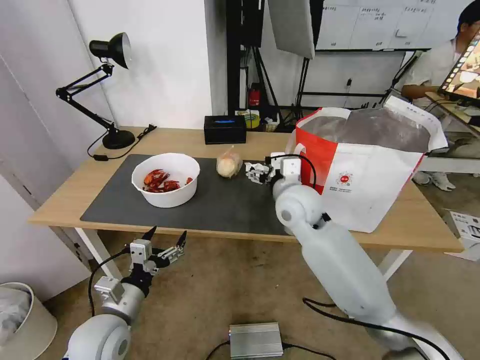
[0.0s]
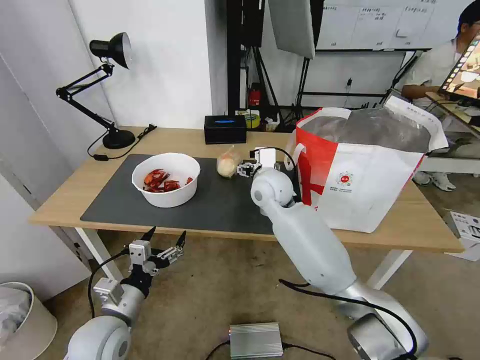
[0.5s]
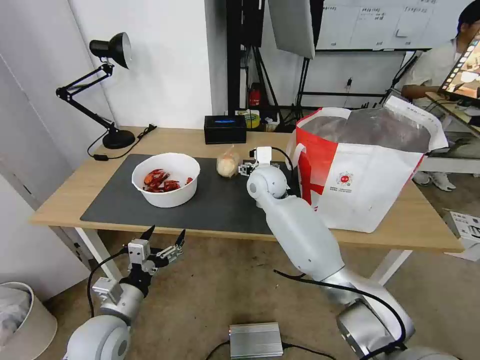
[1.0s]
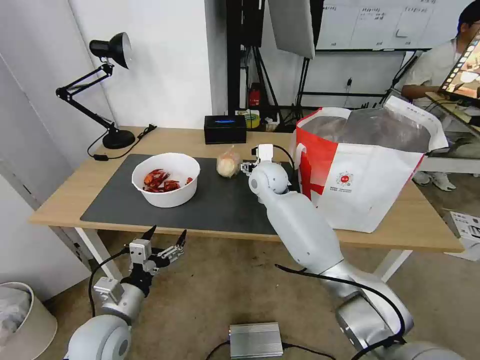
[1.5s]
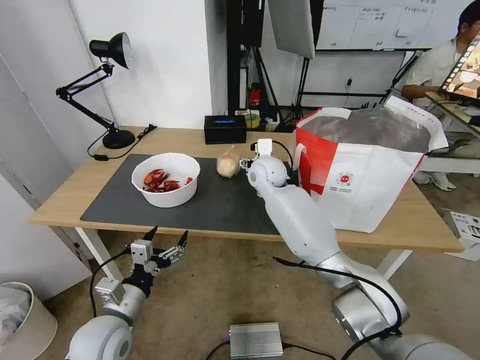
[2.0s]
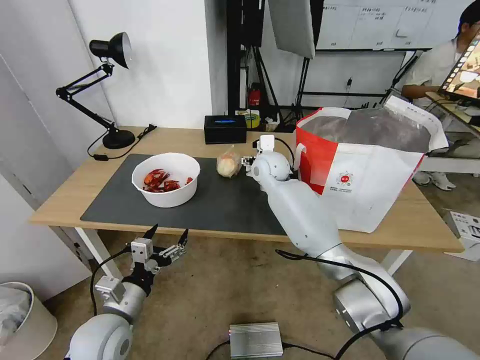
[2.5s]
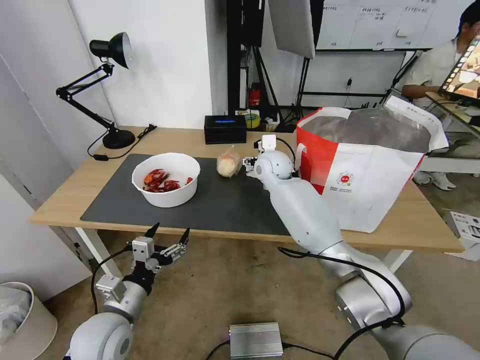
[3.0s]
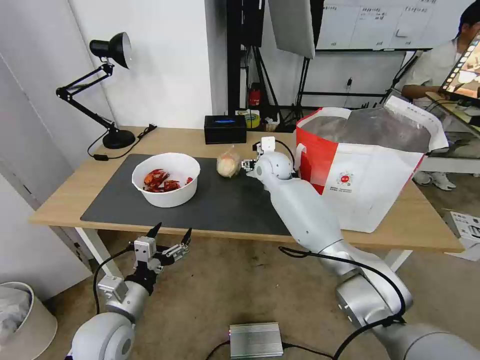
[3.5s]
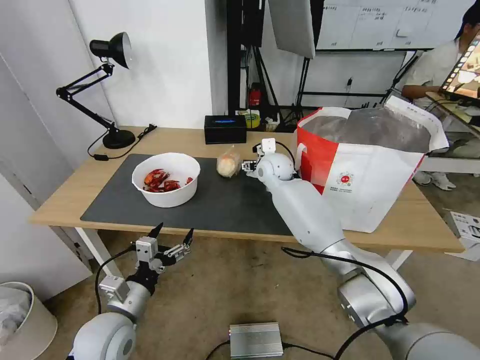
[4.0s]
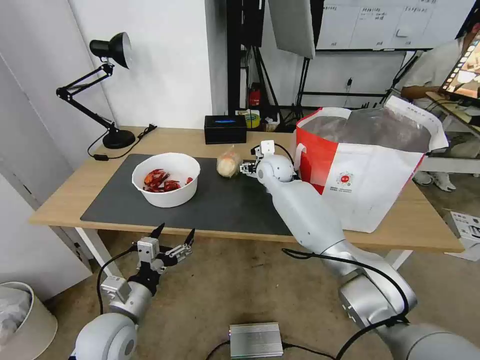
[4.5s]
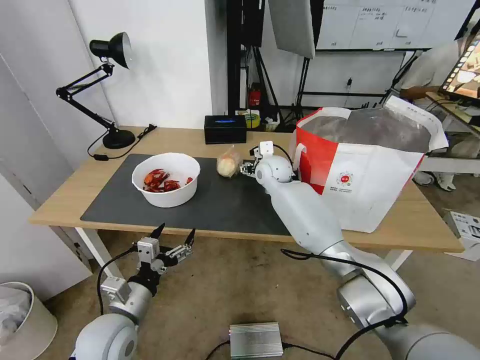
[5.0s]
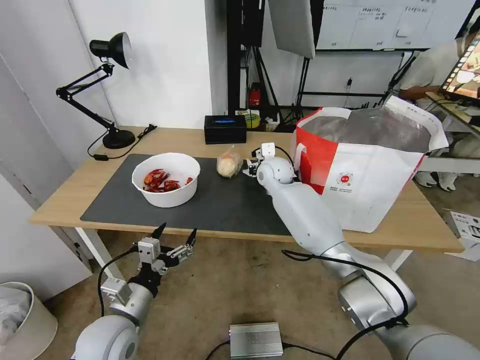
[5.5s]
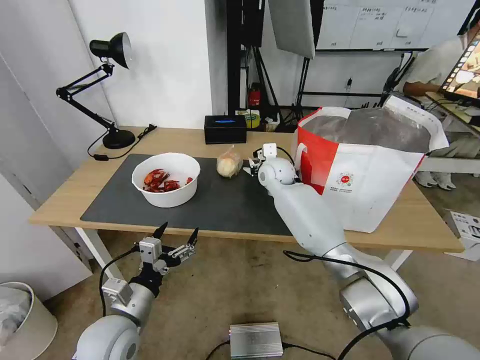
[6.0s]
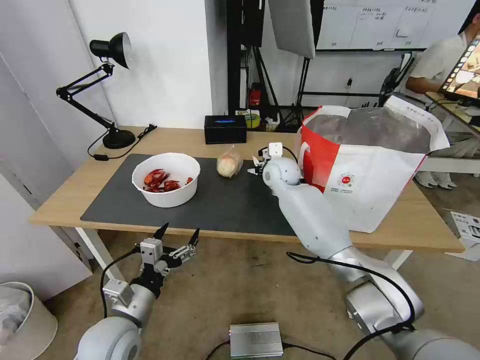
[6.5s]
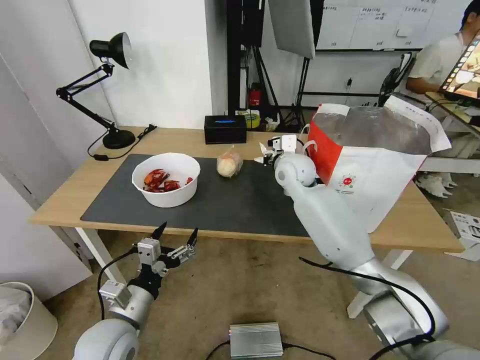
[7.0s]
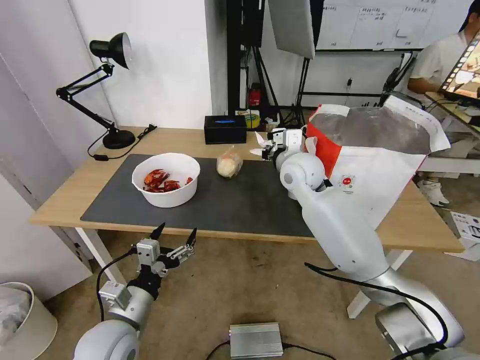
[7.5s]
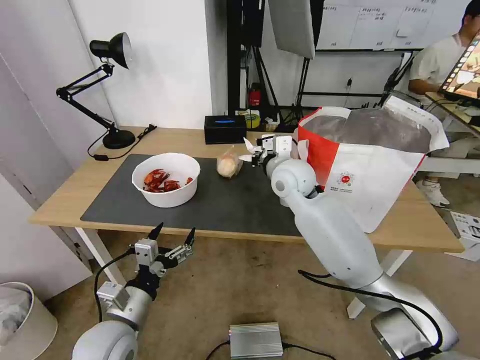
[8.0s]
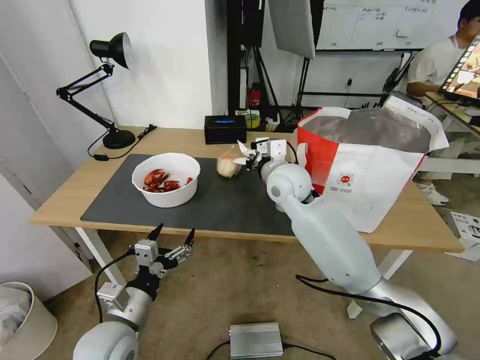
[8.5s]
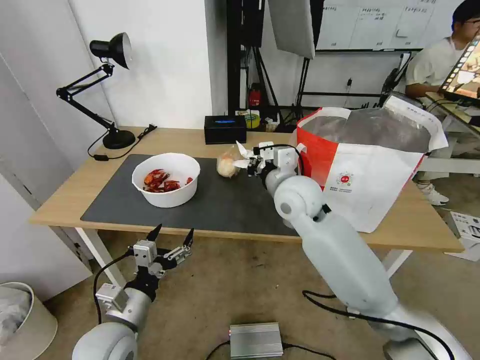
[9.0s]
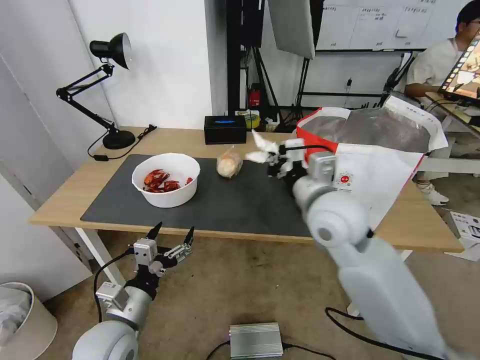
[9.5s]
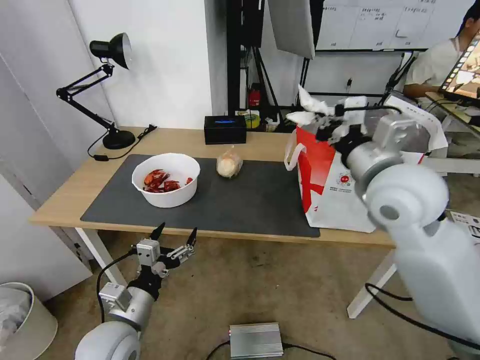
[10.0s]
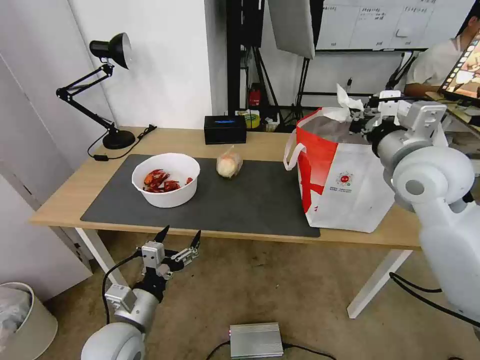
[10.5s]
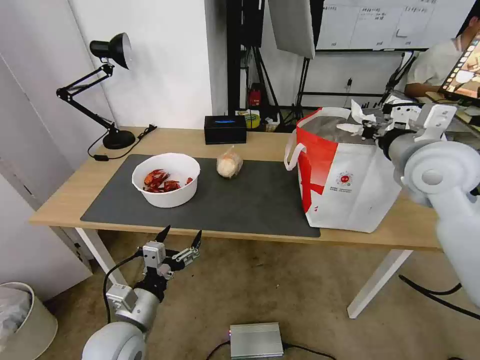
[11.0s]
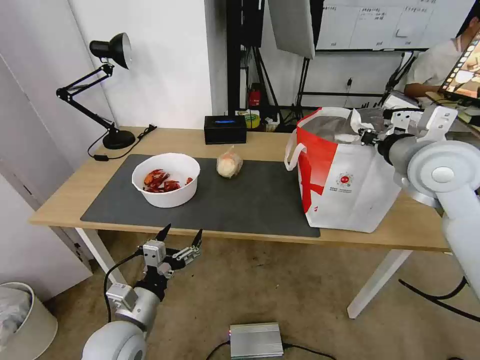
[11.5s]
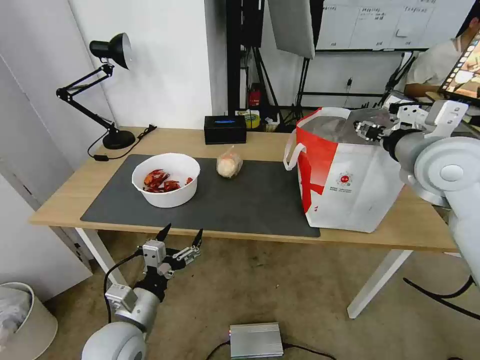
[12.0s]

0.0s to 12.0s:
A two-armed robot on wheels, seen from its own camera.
Task of the whole recording: Pick up the trash from the table and place it into the takeout bag.
0.0s to 2.0s: The right gripper heads forward, covering approximately 15 cm.
2.0s to 4.0s: The grippers stay close to where they were, moving slightly.
4.0s to 6.0s: The right gripper closes.
6.0s to 8.0s: The right gripper goes roughly 10 cm backward and upward.
8.0s to 10.0s: The right gripper travels backward, to the right and upward by about 20 cm.
10.0s to 12.0s: The right gripper heads to the right, covering roughly 10 cm, and opens up.

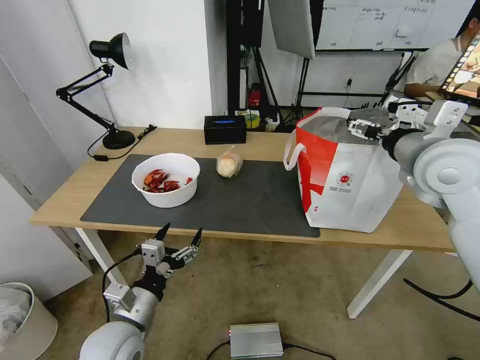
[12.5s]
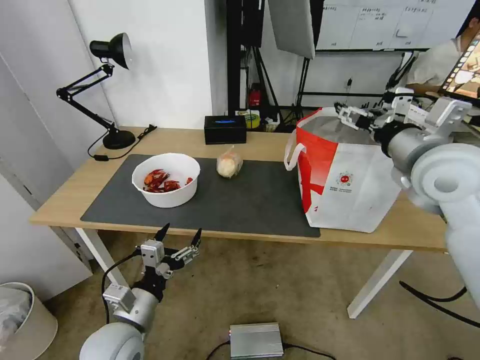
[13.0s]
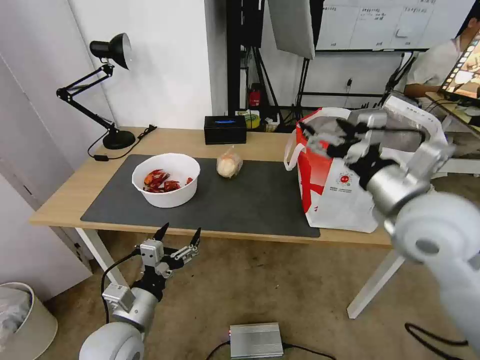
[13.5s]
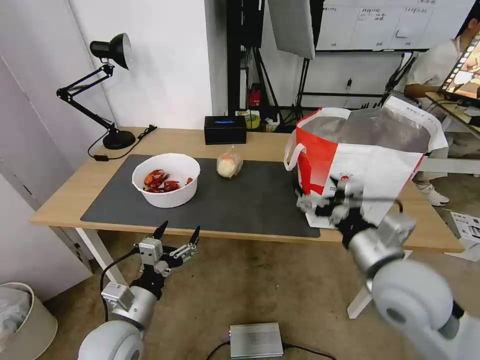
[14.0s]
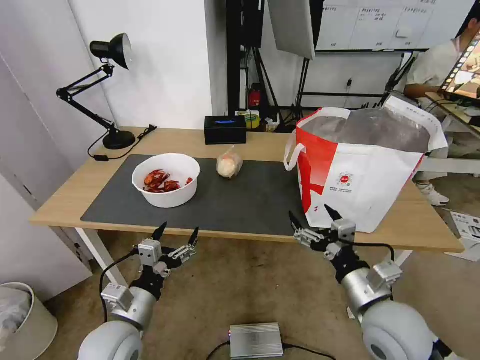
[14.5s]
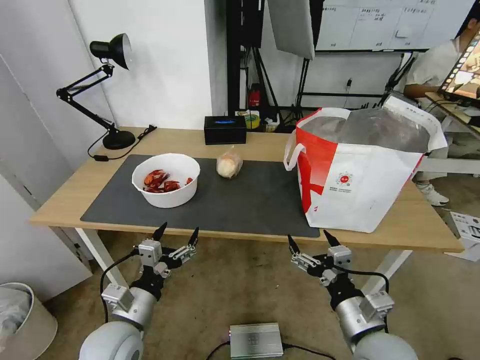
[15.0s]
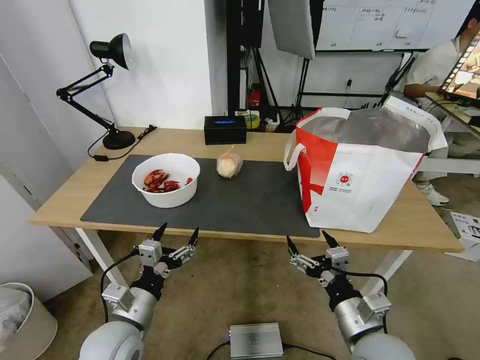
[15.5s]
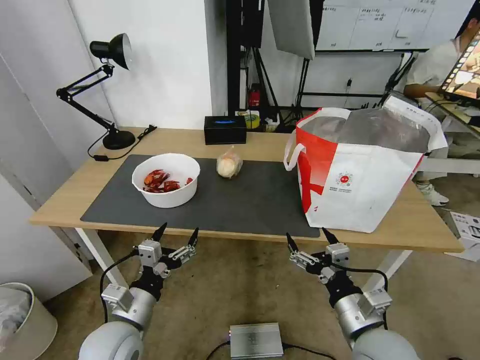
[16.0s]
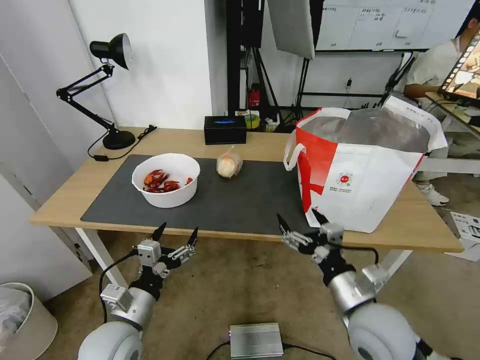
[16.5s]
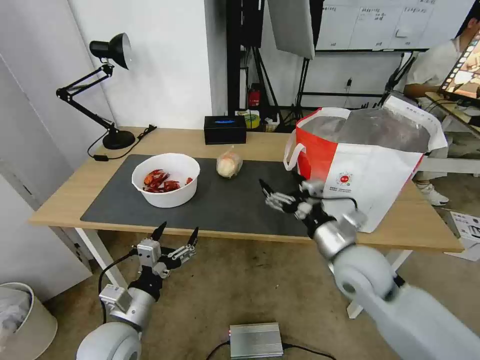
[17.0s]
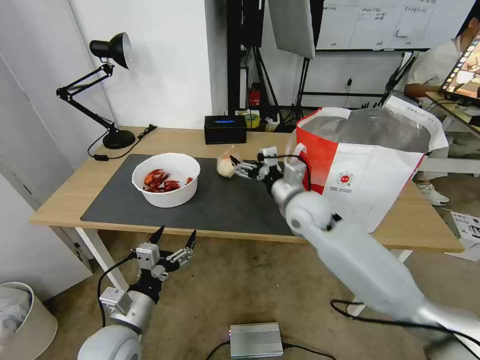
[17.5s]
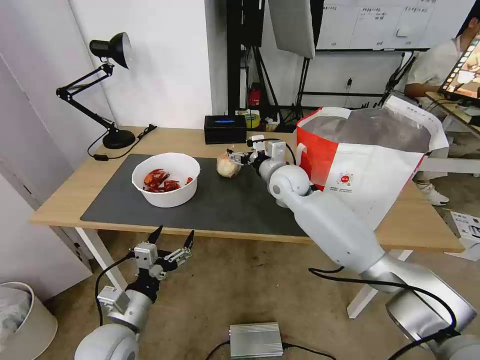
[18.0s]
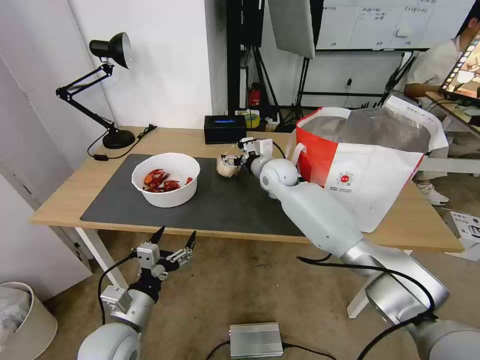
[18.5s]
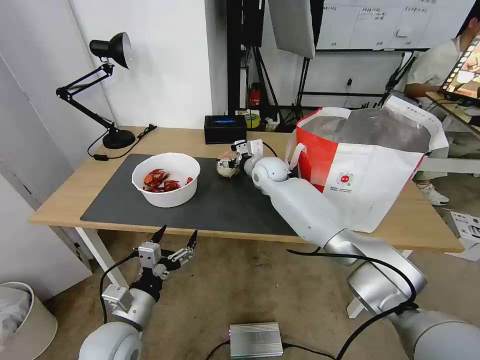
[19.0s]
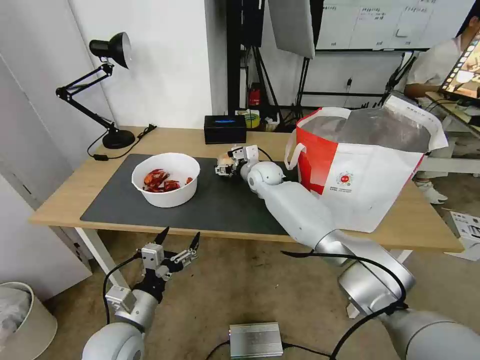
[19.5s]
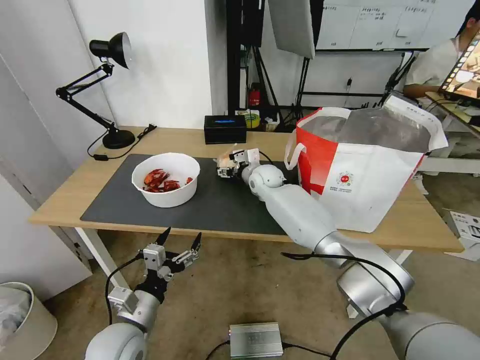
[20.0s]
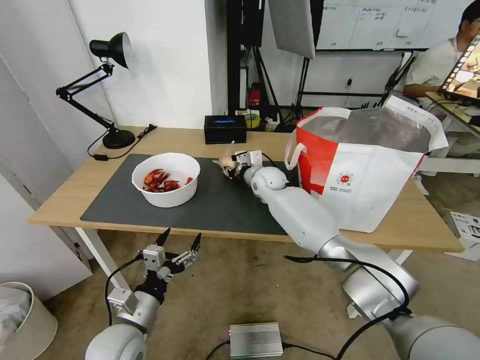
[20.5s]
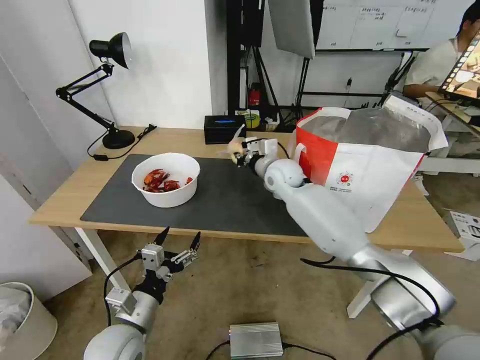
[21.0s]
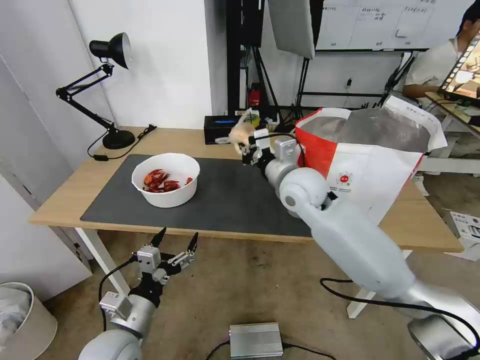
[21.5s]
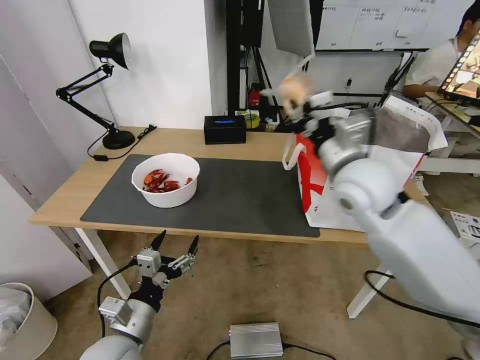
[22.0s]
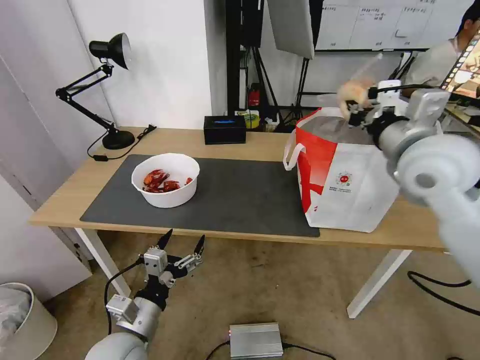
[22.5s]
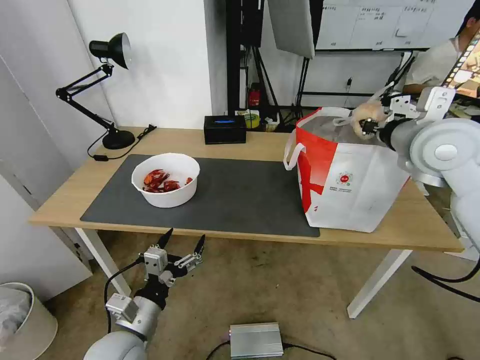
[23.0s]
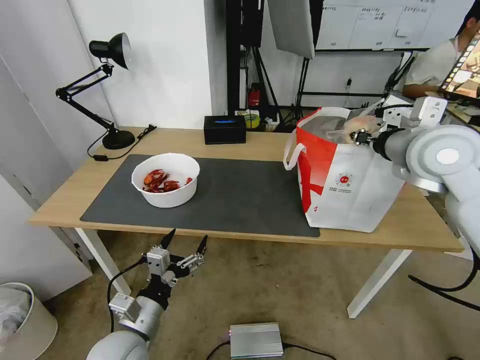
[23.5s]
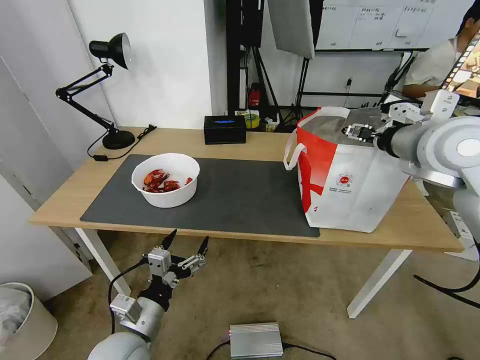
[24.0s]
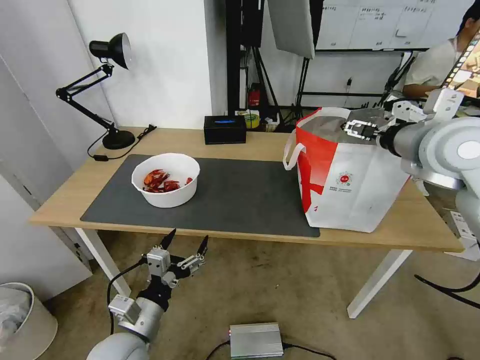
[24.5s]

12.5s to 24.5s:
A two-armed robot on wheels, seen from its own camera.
Task of the whole recording: Pick up the trash from the table and place it into the takeout bag.
12.5s to 14.5s: The right gripper moves downward and backward, some 25 cm.
16.5s to 18.5s: The right gripper heads forward, covering about 35 cm.
18.5s to 20.5s: The right gripper travels downward by some 5 cm, and closes its fingers.
20.5s to 22.5s: The right gripper heads upward, backward and to the right, covering about 40 cm.
22.5s to 24.5s: The right gripper opens.

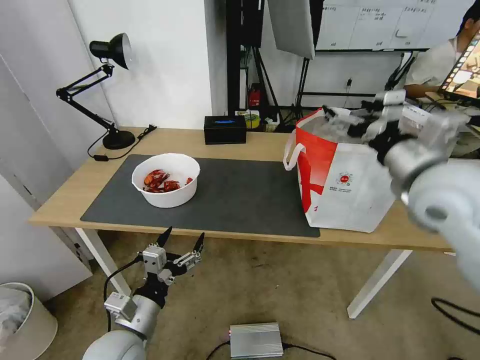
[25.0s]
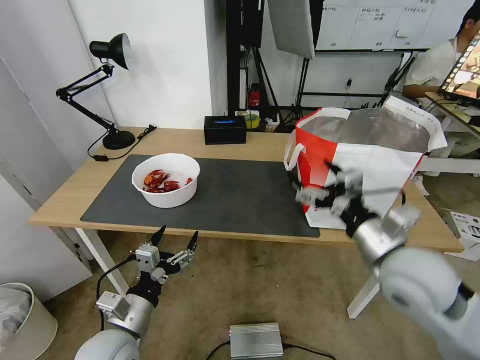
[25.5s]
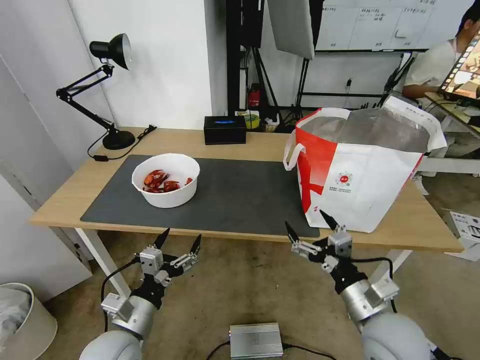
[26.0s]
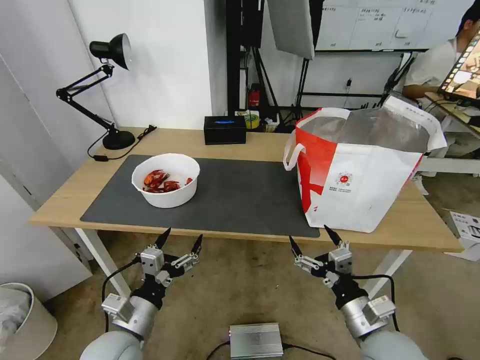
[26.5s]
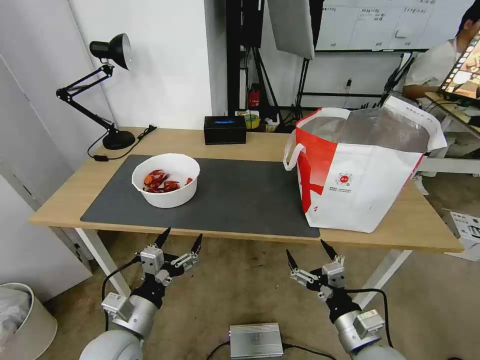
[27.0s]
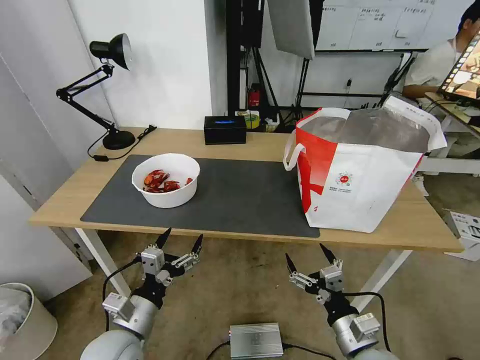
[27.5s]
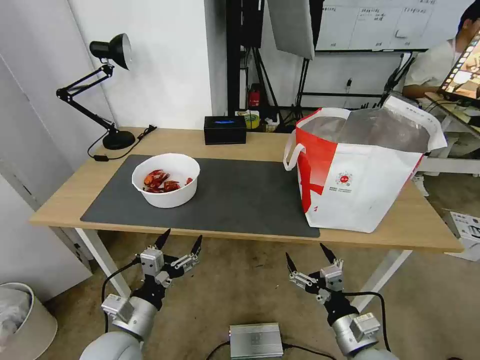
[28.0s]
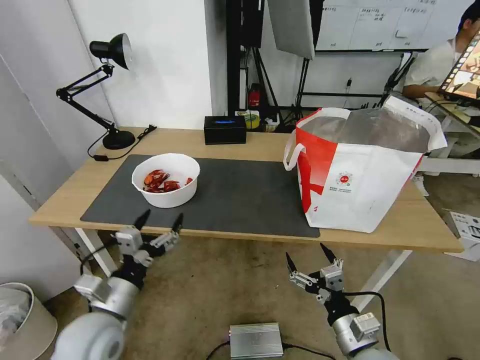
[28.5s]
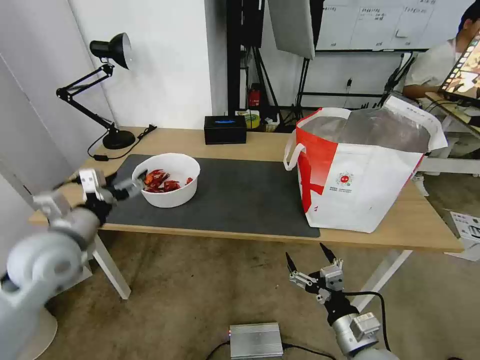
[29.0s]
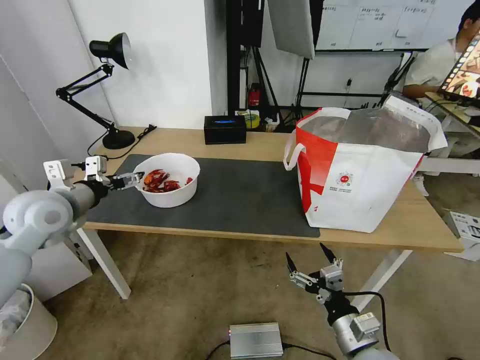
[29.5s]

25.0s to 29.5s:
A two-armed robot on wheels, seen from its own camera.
Task of the whole recording: Pick up the trash from the table and place it into the takeout bag.
25.0s to 27.0s: The right gripper moves downward and backward, approximately 35 cm.
27.0s to 29.5s: The left gripper heads forward, upward and to the left, covering about 30 cm.
